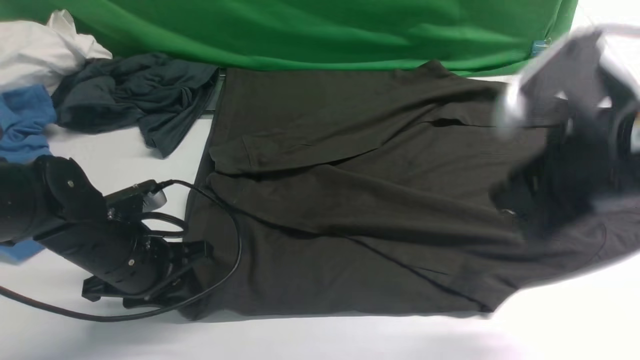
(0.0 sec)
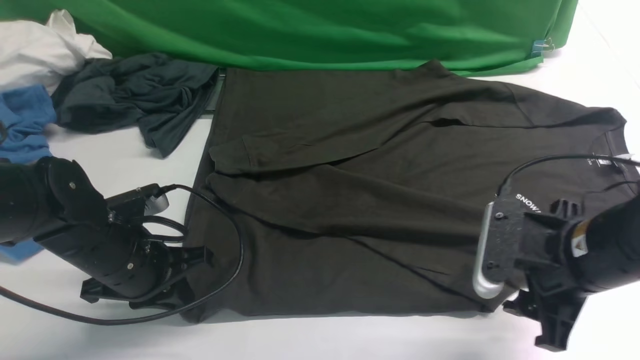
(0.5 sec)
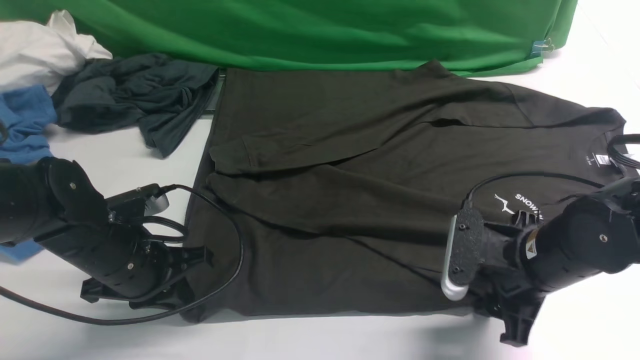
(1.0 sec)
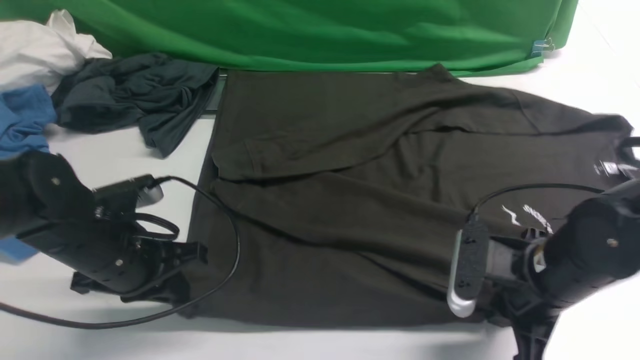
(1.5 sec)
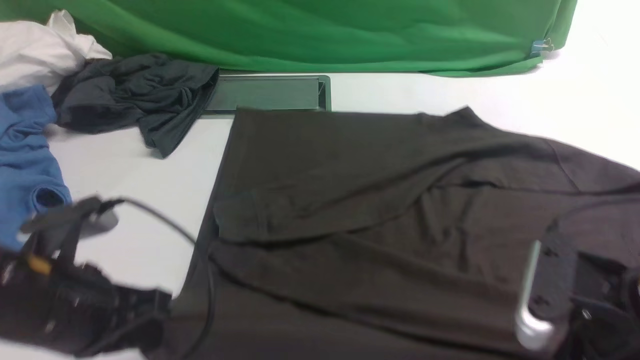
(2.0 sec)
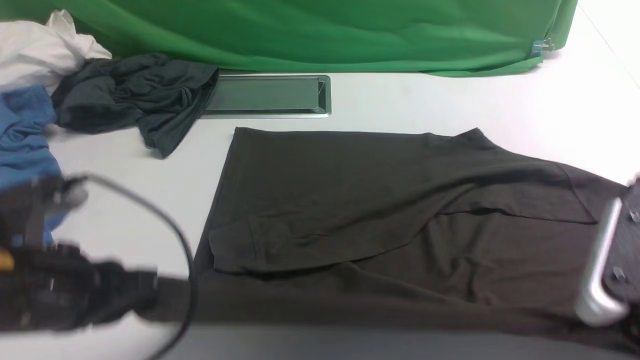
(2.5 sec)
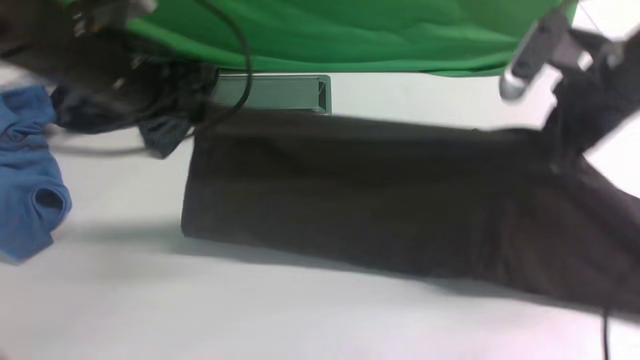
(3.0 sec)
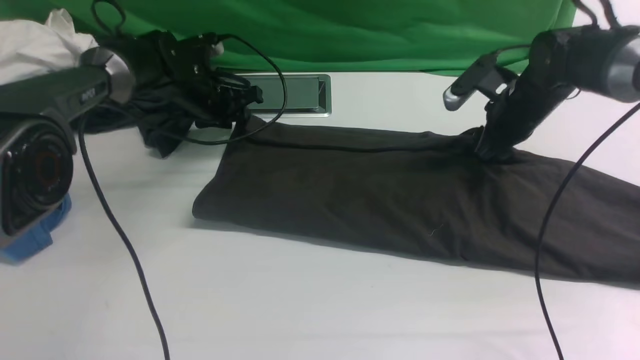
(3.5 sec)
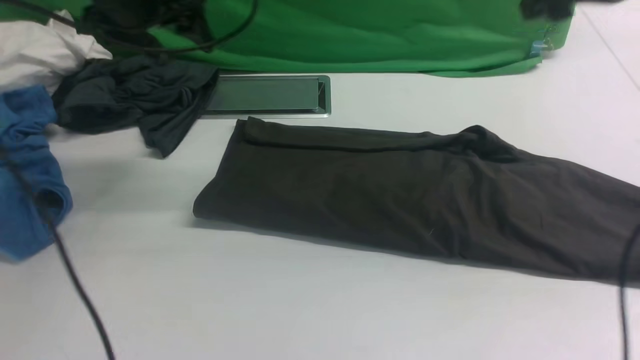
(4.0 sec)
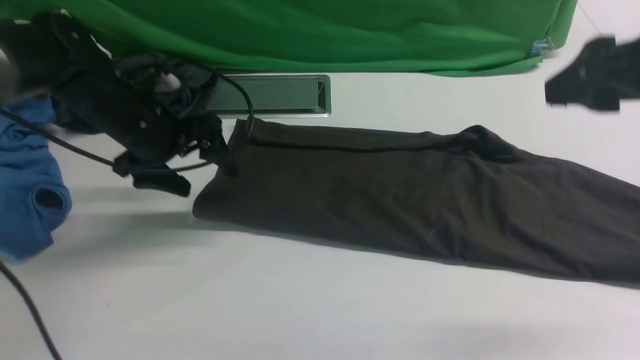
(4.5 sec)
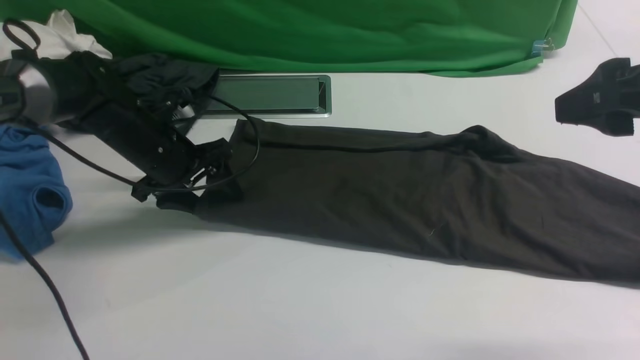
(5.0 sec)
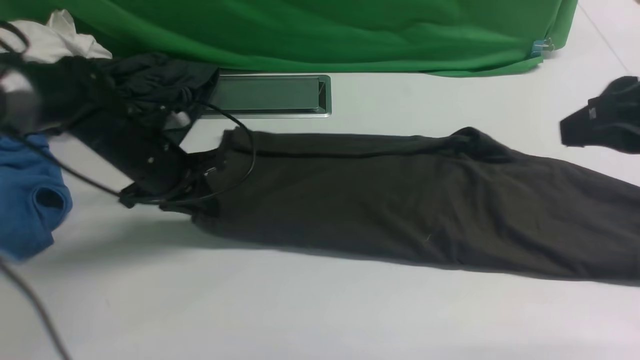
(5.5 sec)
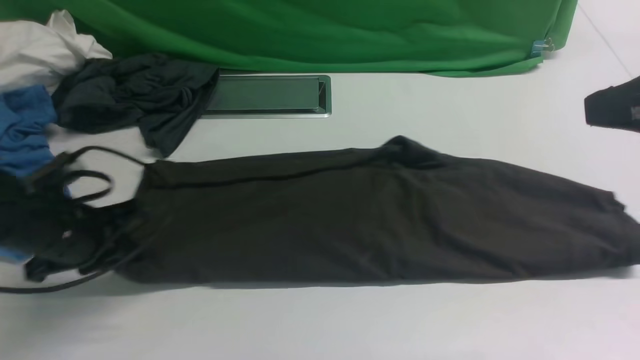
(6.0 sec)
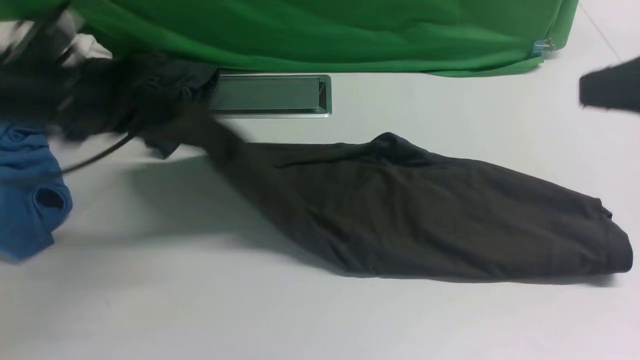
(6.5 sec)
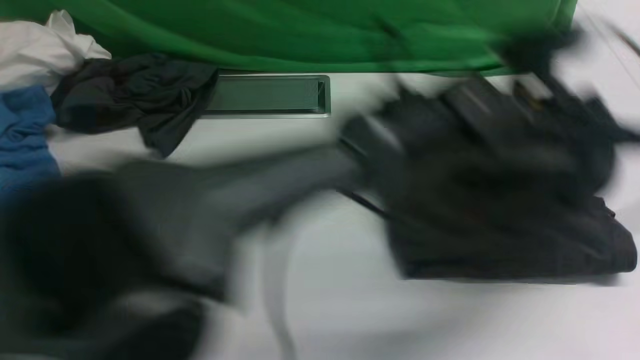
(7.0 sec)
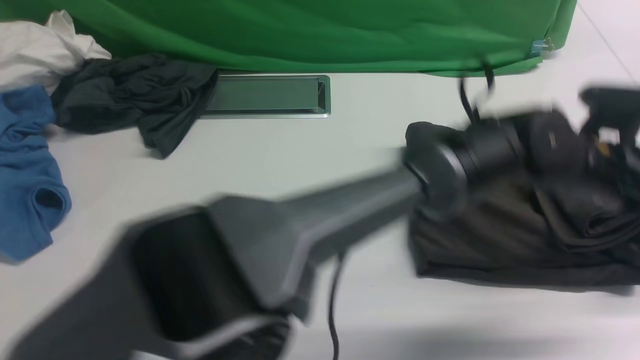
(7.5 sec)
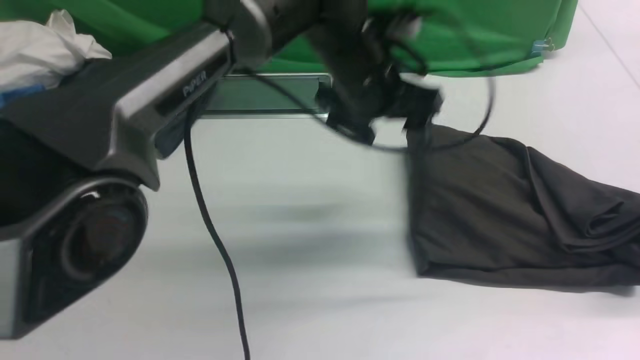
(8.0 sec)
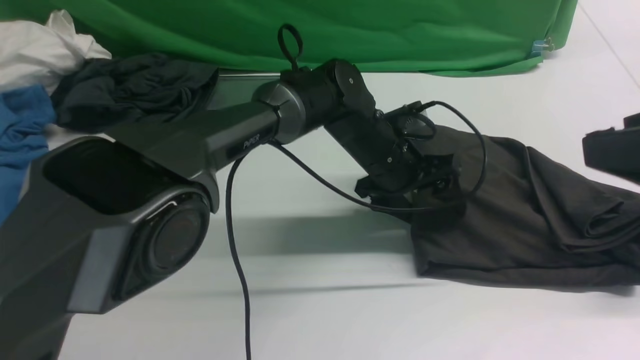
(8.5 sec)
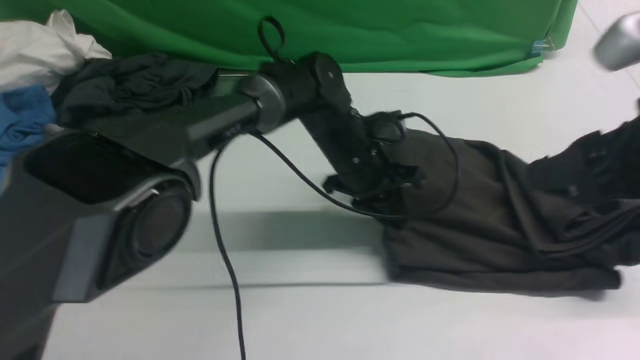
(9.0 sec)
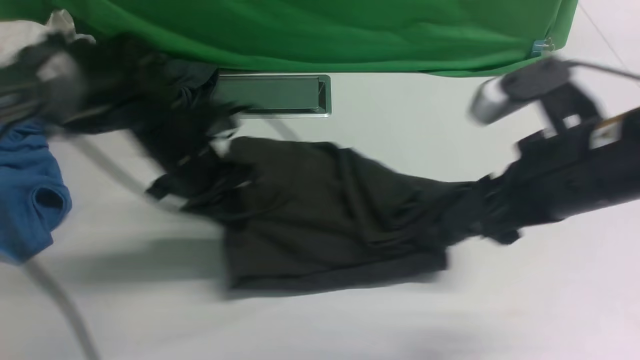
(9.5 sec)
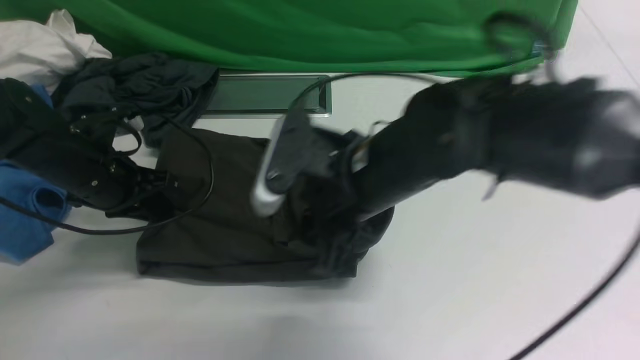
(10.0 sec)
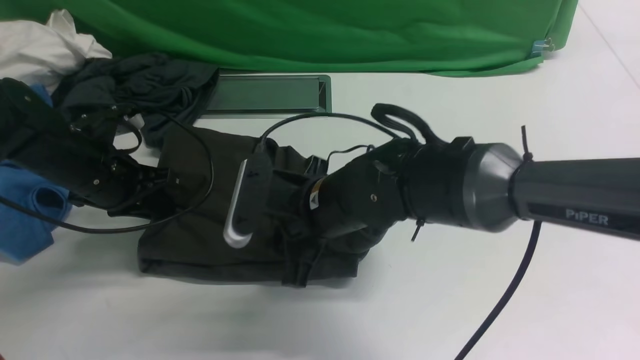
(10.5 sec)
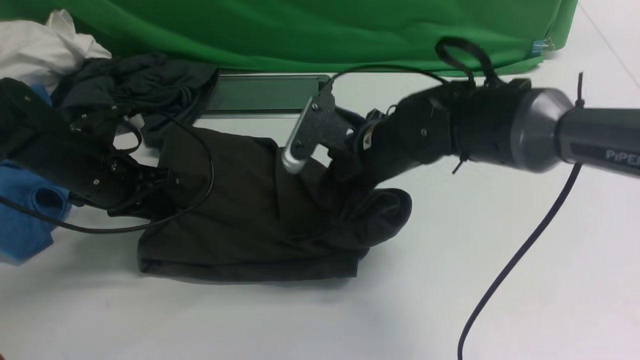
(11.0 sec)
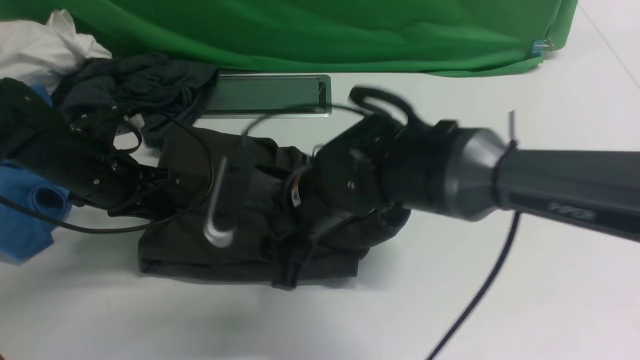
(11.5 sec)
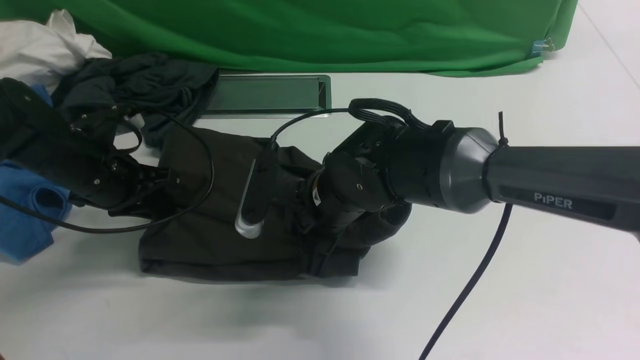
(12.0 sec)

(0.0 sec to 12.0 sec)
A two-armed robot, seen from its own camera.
Step, 0.0 sec - 1.5 sec: use both arms simultaneously to clamp the lower edge of the clothing fabric.
Step, 2.0 sec - 3.5 sec: use both arms to drag the lower edge of the fabric forward and fold it over the upper edge.
Step, 4.0 sec - 6.0 sec: Hold the left edge of the fabric with your left arm.
Step, 6.5 sec - 7.5 sec: Drag the left edge of the fabric to the left with your left arm and fold it to the right edge.
0.0 sec - 2.0 sec: The right gripper is displaced backward and downward by approximately 10 cm, and closes up, while the left gripper moves backward and upward, roughly 10 cm.
2.0 sec - 4.0 sec: The right gripper heads forward and upward, covering about 25 cm, and opens. Meanwhile the left gripper goes some 30 cm forward, and opens its fingers.
4.0 sec - 6.0 sec: The right gripper shifts roughly 15 cm backward, and closes up; the left gripper is displaced backward and downward by approximately 20 cm, and closes up.
6.0 sec - 8.0 sec: The left gripper moves to the right, approximately 30 cm, and opens, while the right gripper goes roughly 5 cm backward, and opens its fingers.
8.0 sec - 10.0 sec: The right gripper heads to the left, downward and forward, covering about 30 cm. Meanwhile the left gripper is displaced to the left by some 30 cm, and closes its fingers.
10.0 sec - 12.0 sec: The right gripper moves downward, roughly 5 cm, and closes up.

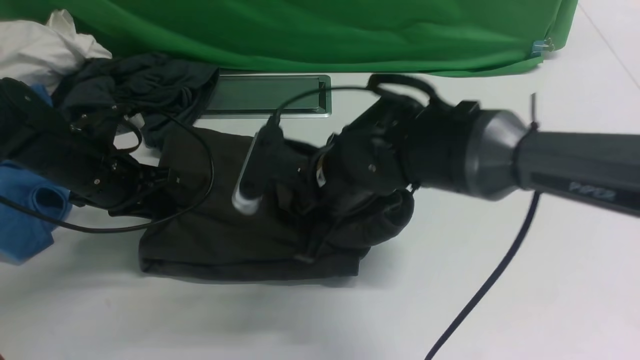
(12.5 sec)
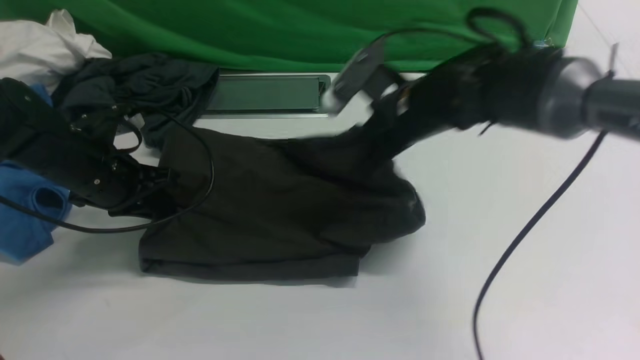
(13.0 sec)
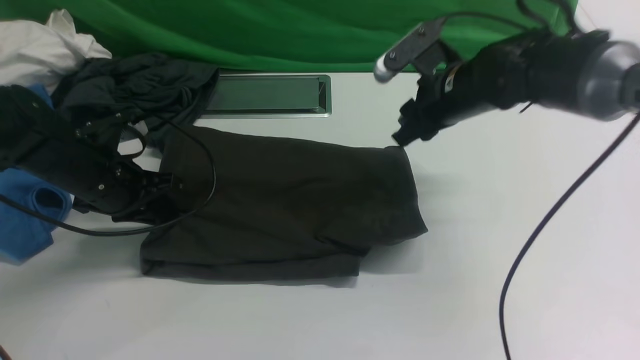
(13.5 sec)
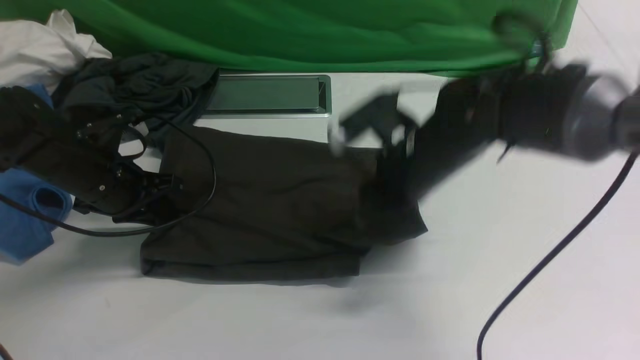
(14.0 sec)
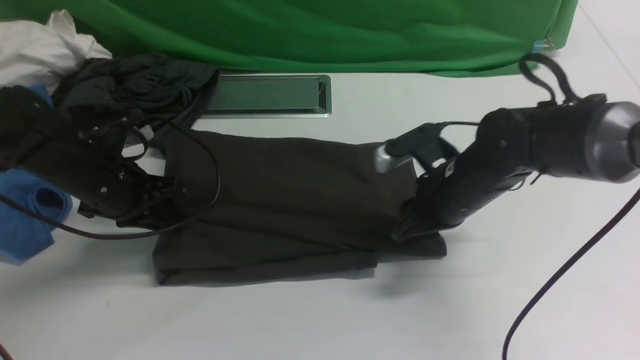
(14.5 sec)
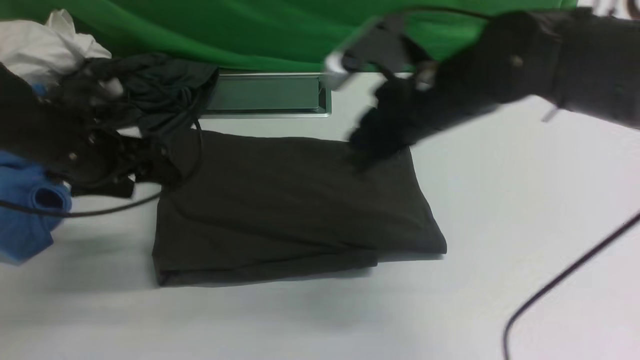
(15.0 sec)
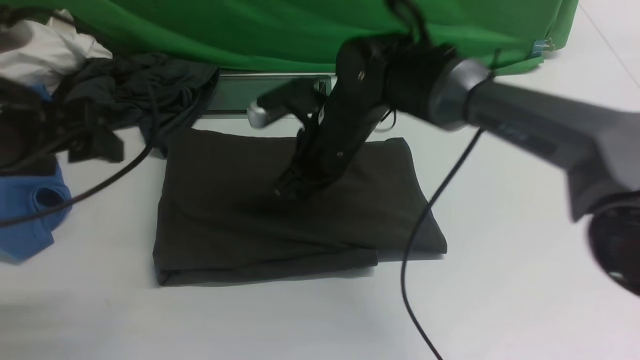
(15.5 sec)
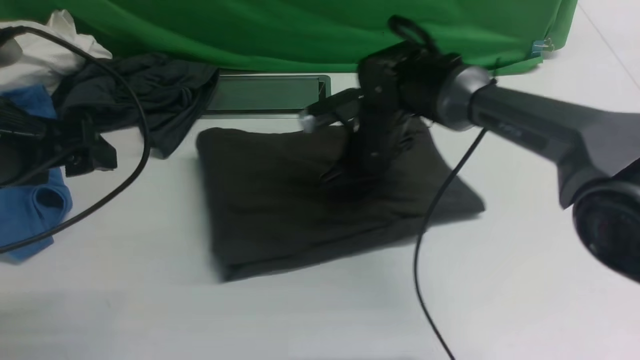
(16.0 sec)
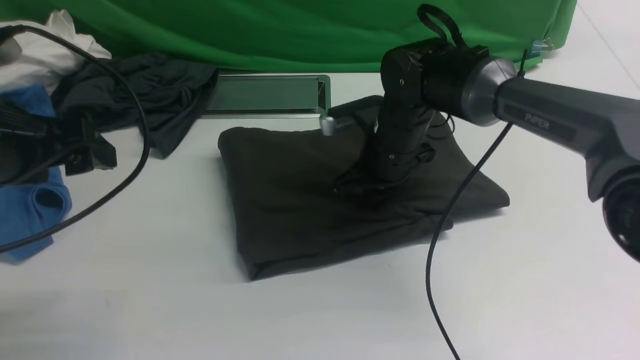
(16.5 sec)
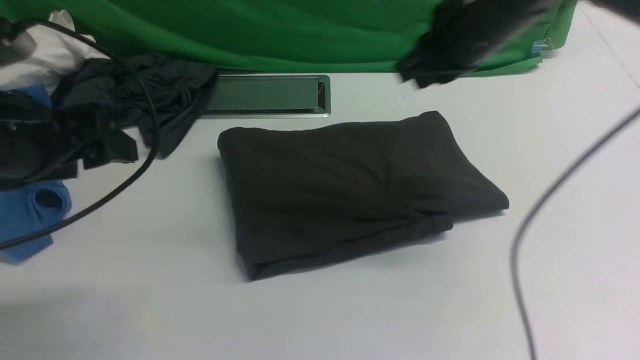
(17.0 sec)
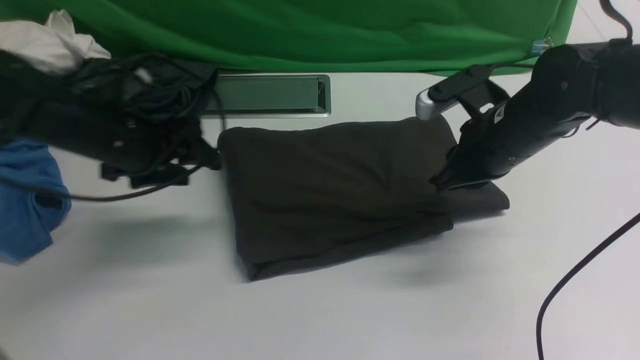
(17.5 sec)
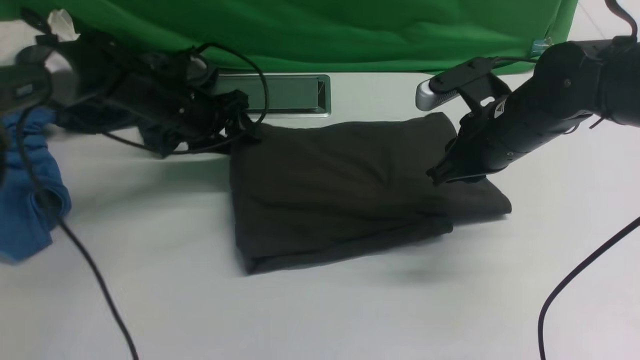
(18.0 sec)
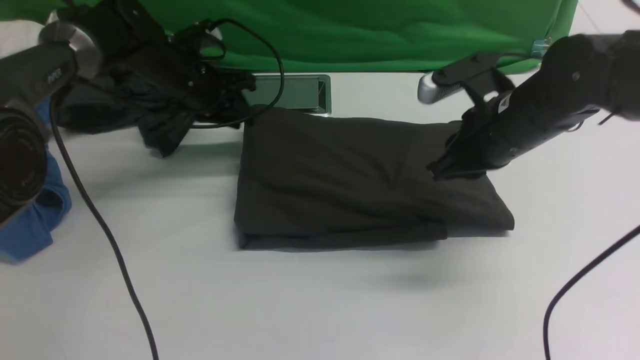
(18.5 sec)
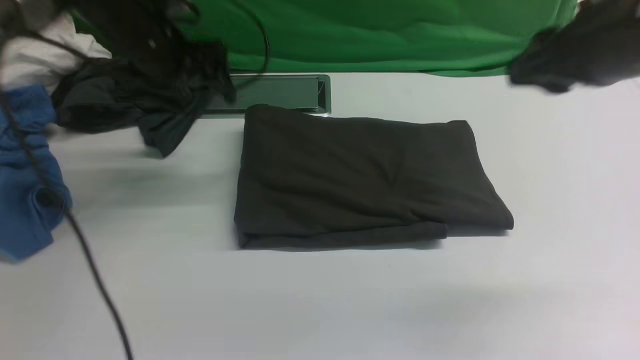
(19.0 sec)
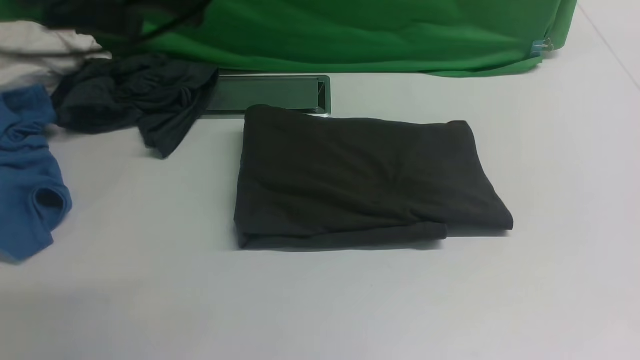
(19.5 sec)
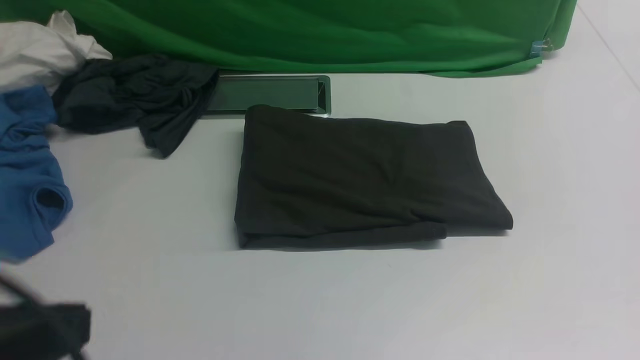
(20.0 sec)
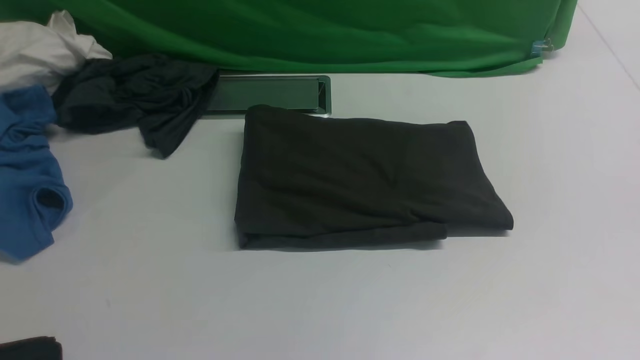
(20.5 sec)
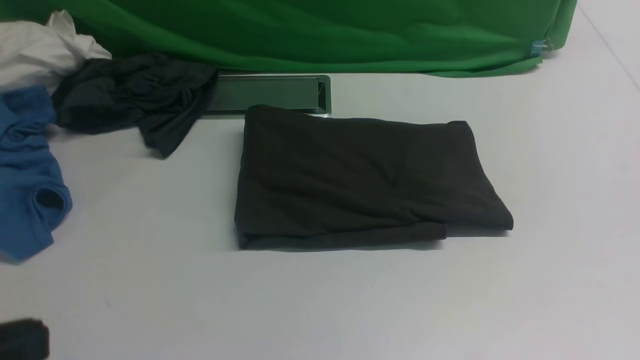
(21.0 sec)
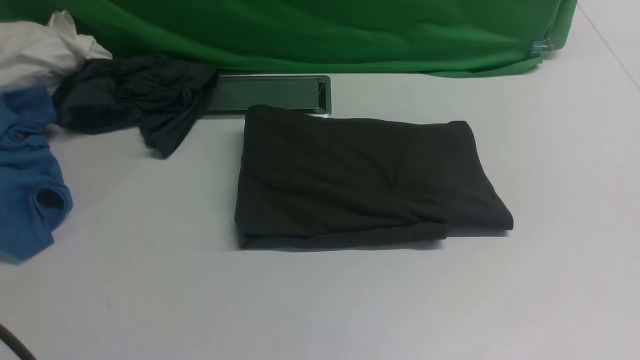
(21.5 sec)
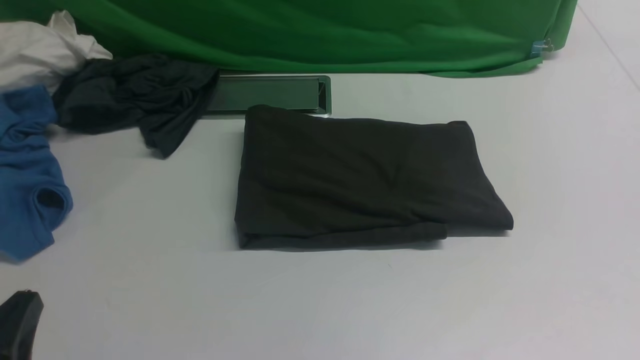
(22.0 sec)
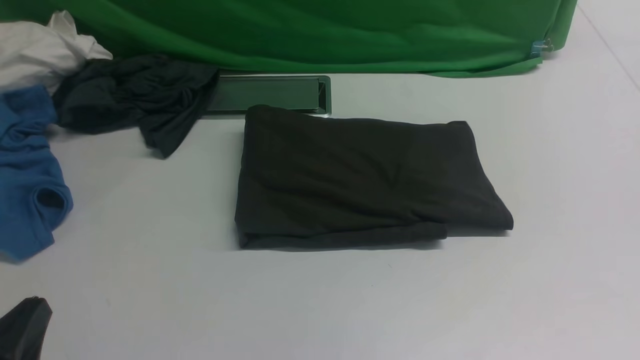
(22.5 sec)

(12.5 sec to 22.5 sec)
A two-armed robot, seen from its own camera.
12.5 sec - 14.5 sec: The right gripper is displaced to the right by some 15 cm, and opens.
14.5 sec - 16.5 sec: The left gripper goes some 20 cm upward and backward, and opens up. The right gripper moves forward and to the left, about 10 cm, and closes.
16.5 sec - 18.5 sec: The right gripper travels to the right, upward and backward by about 15 cm, while the left gripper heads forward and downward, covering approximately 30 cm, and closes.
18.5 sec - 20.5 sec: The right gripper is displaced backward by roughly 30 cm; the left gripper goes roughly 50 cm backward, and closes.
20.5 sec - 22.5 sec: The left gripper moves downward, approximately 15 cm.
